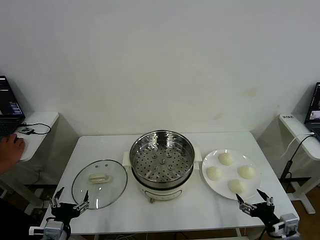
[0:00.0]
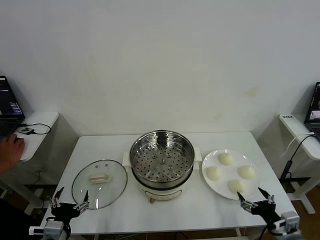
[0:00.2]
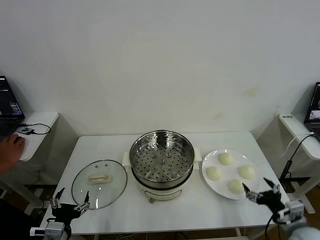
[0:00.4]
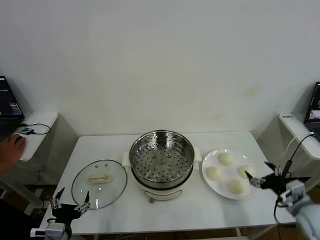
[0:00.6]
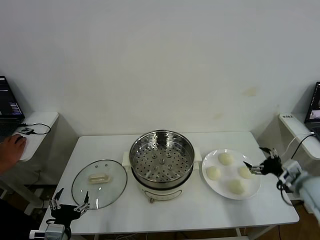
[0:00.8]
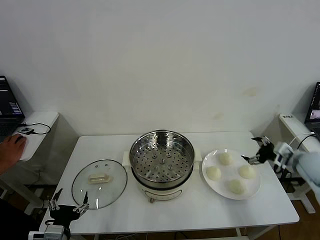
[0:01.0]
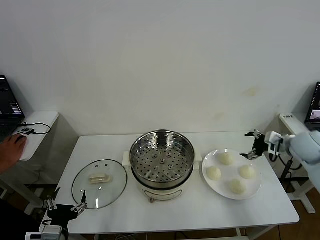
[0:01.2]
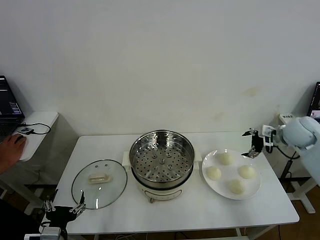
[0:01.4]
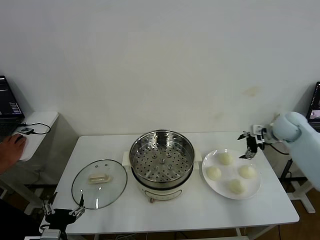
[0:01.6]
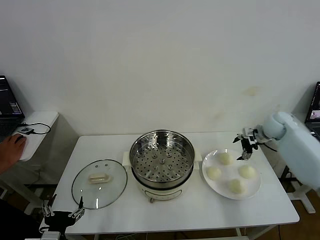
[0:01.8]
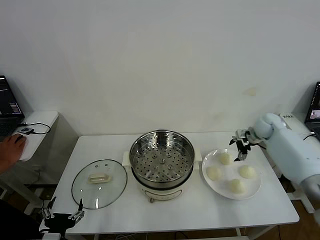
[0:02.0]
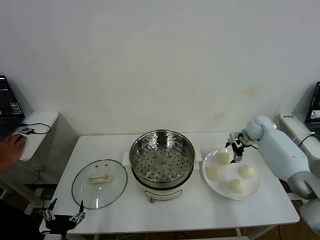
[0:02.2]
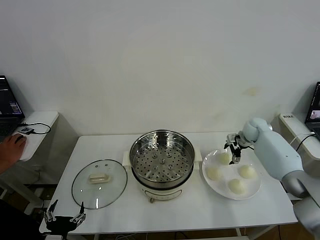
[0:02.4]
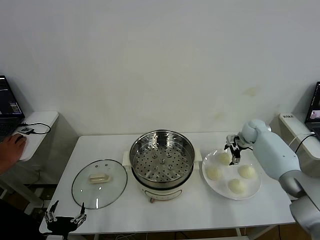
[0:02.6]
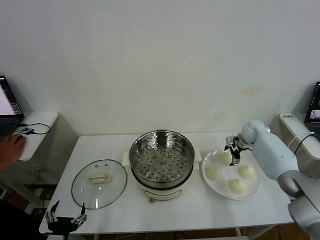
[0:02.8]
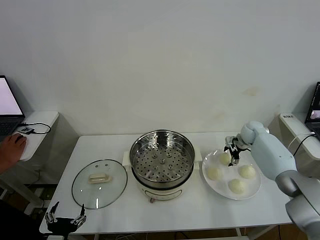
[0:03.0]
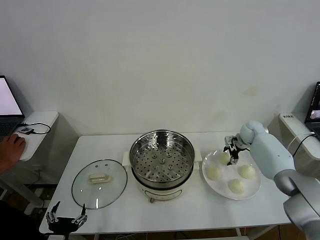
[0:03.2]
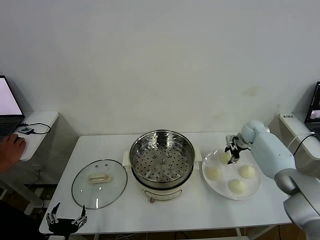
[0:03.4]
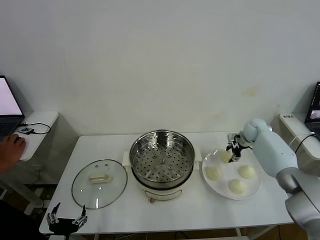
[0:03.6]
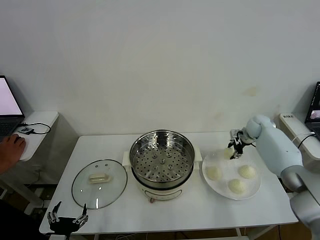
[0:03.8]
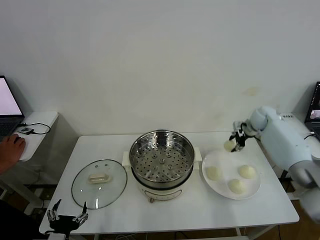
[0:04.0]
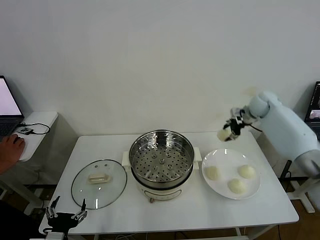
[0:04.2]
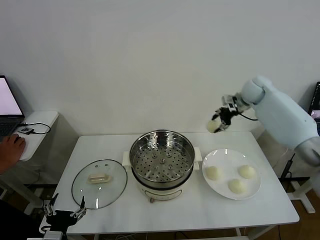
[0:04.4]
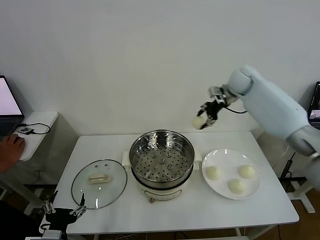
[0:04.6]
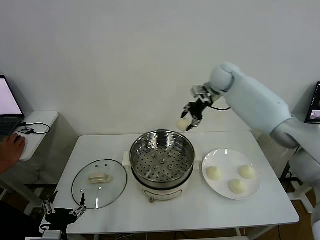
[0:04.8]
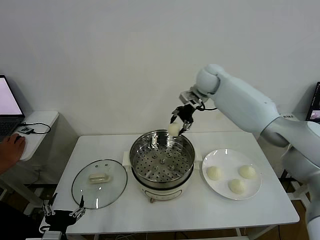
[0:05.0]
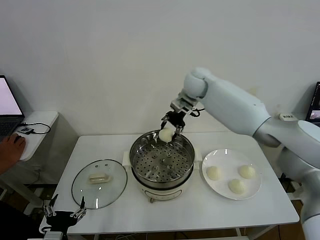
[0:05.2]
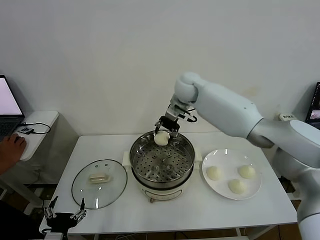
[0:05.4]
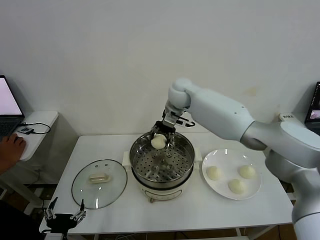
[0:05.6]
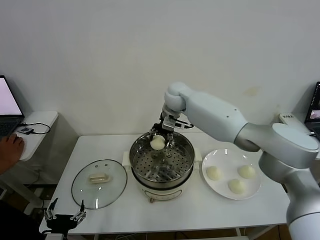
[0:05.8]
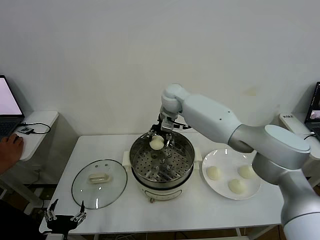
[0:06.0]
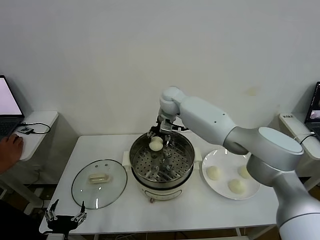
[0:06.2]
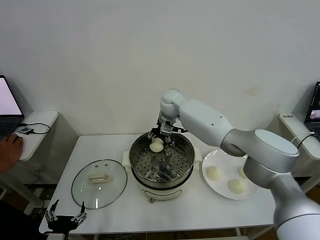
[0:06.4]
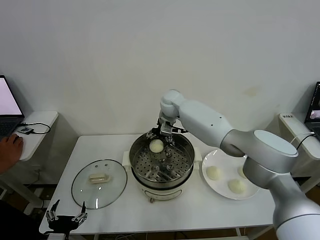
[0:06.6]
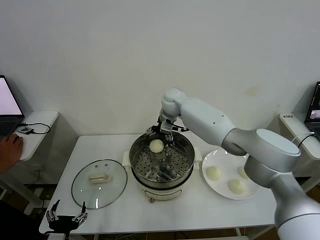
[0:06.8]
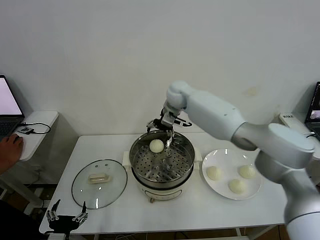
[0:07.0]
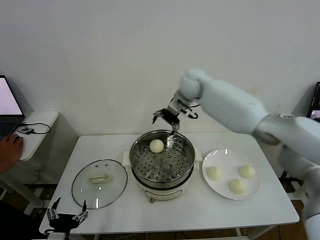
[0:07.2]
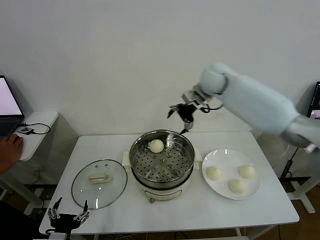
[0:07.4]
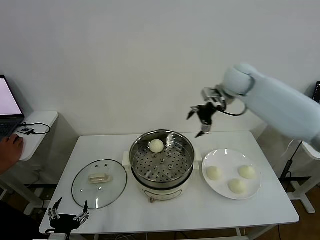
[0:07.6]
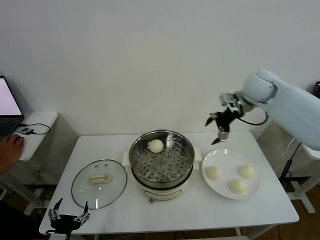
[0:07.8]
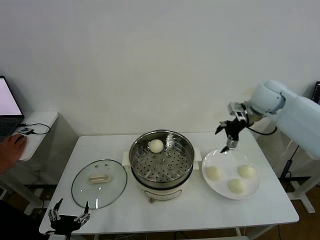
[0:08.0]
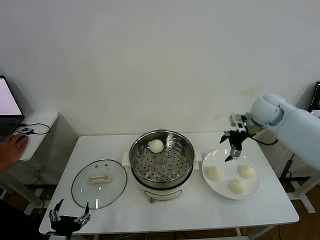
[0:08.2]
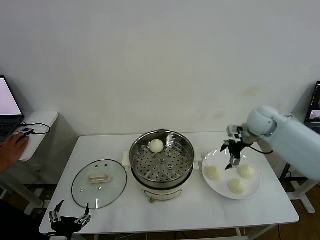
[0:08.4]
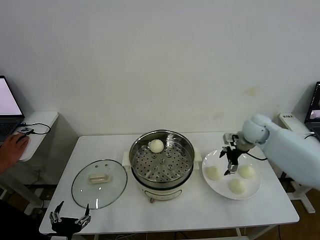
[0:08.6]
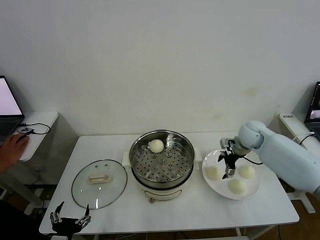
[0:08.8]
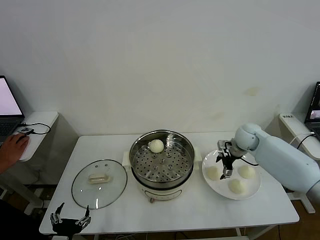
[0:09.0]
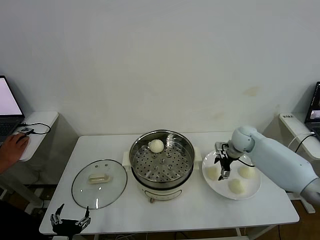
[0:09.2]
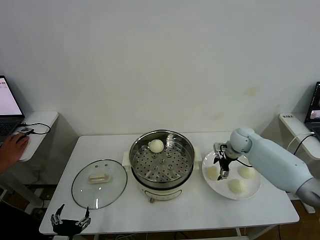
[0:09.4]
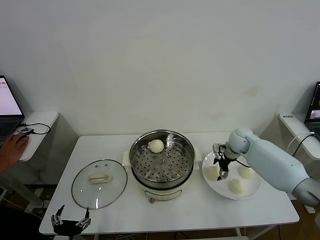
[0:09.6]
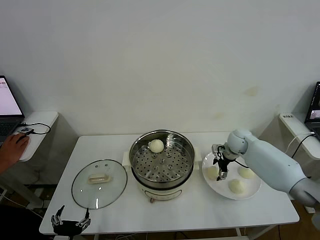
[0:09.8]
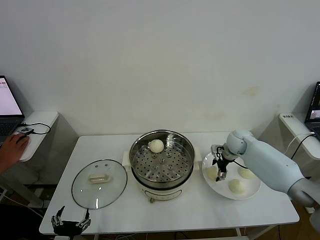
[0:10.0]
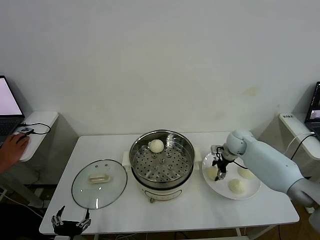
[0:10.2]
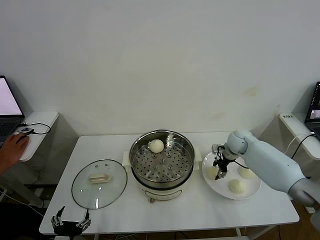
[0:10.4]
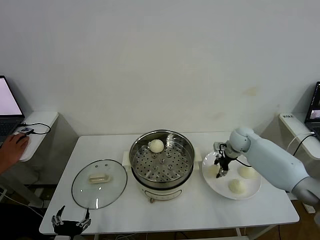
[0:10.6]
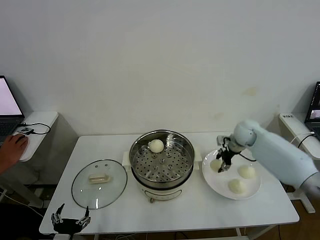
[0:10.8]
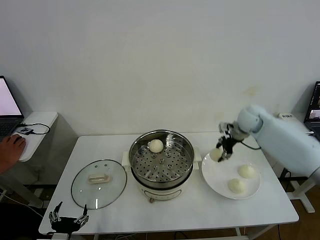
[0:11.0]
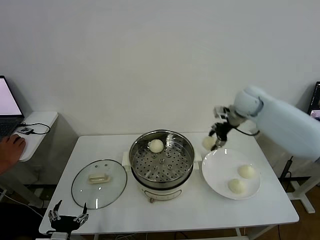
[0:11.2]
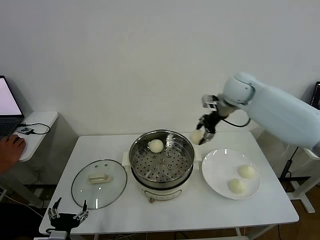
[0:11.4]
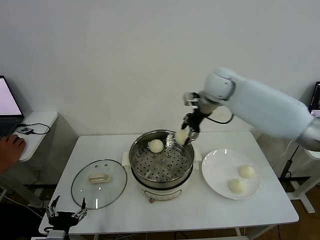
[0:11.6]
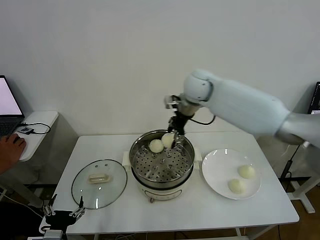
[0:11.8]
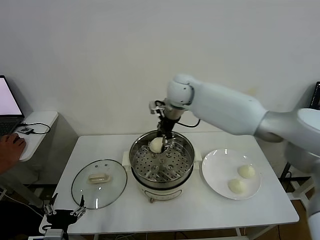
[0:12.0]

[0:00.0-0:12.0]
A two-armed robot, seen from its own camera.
Step, 0:00.0 to 0:03.4: Grasp the baozi in the plate with right gripper.
Step, 0:03.6 to 0:06.4: Place the baozi on the steamer with right gripper.
Step, 0:06.8 to 0:10.4: Grasp the baozi in the plate with right gripper.
0:01.6 to 0:03.0: The right gripper is displaced downward and forward by some 15 cm.
0:03.0 to 0:04.4: The right gripper goes about 20 cm upward, and closes.
0:04.4 to 0:06.0: The right gripper goes roughly 25 cm to the left.
0:06.0 to 0:07.6: The right gripper heads to the right and upward, covering roughly 25 cm, and opens.
0:07.6 to 0:09.0: The right gripper moves downward, roughly 20 cm.
0:09.0 to 0:10.4: The right gripper closes up.
0:10.4 to 0:12.0: The right gripper moves to the left and upward, approximately 35 cm.

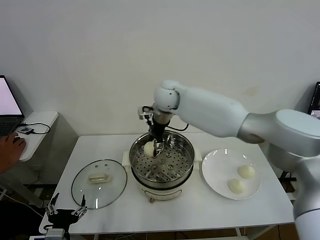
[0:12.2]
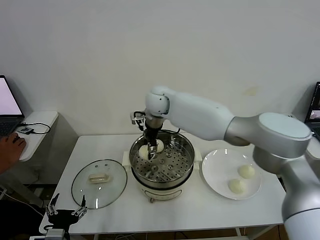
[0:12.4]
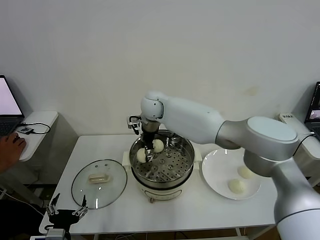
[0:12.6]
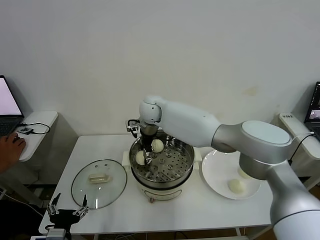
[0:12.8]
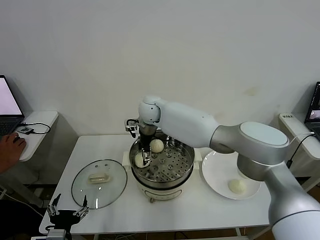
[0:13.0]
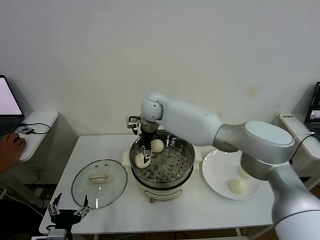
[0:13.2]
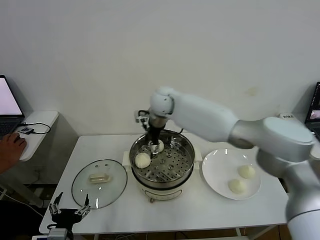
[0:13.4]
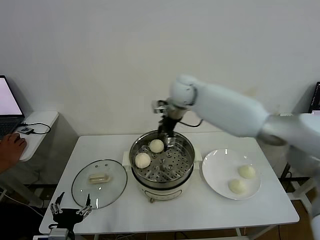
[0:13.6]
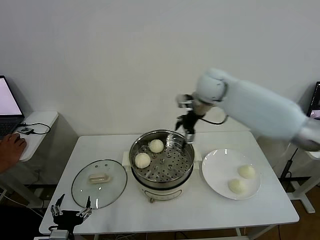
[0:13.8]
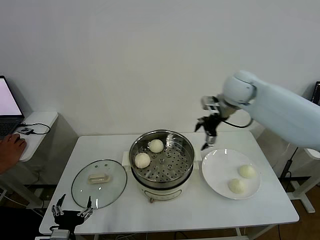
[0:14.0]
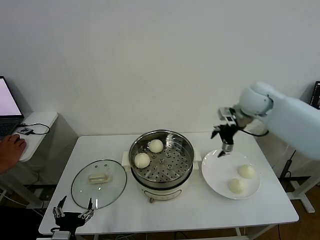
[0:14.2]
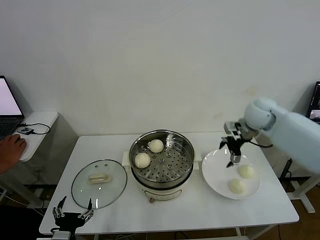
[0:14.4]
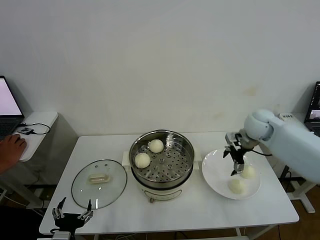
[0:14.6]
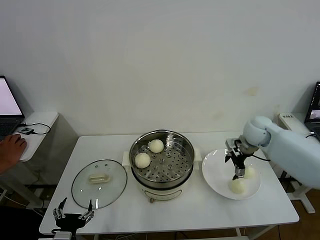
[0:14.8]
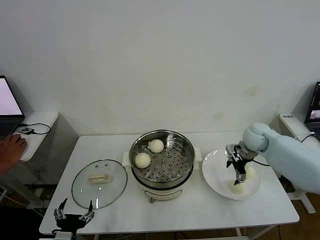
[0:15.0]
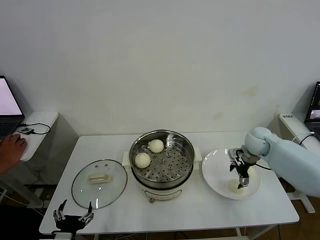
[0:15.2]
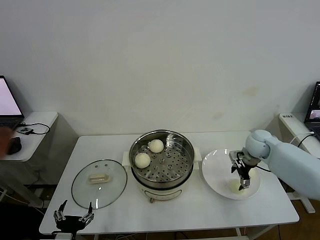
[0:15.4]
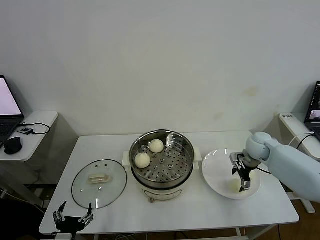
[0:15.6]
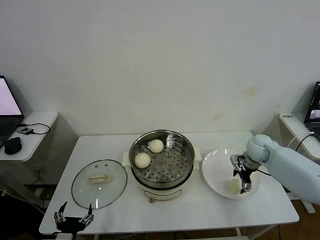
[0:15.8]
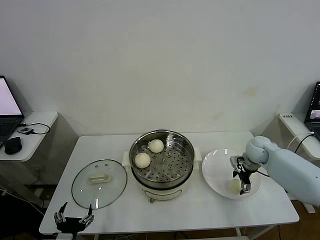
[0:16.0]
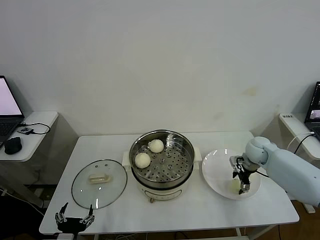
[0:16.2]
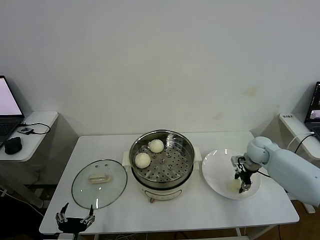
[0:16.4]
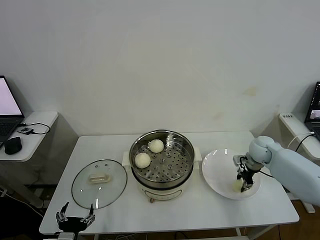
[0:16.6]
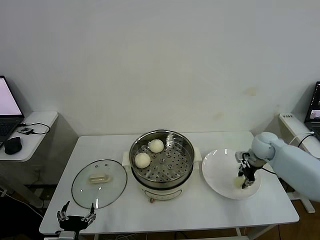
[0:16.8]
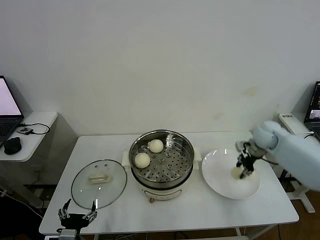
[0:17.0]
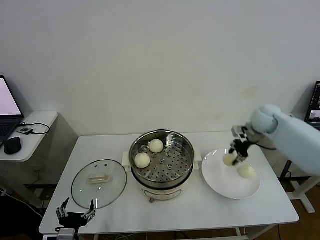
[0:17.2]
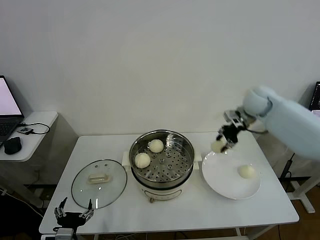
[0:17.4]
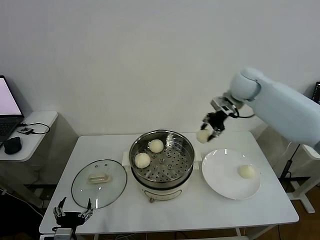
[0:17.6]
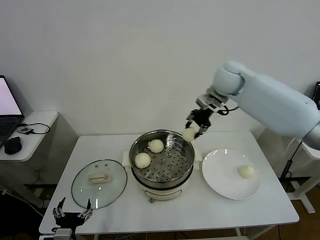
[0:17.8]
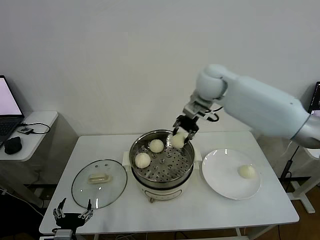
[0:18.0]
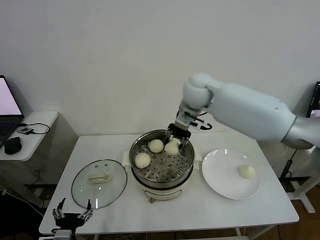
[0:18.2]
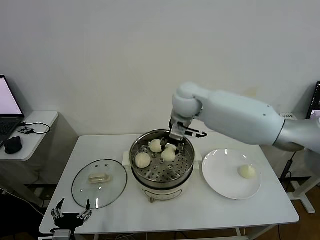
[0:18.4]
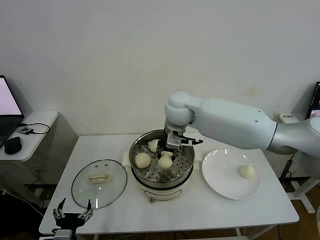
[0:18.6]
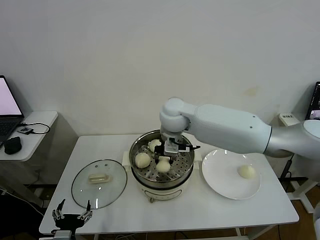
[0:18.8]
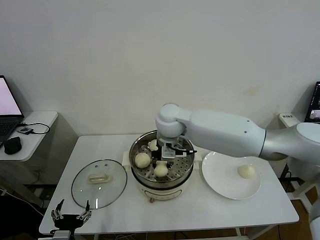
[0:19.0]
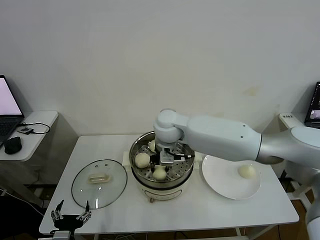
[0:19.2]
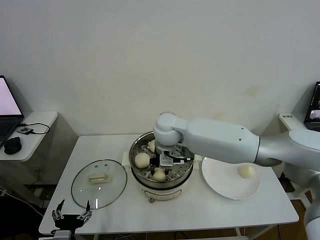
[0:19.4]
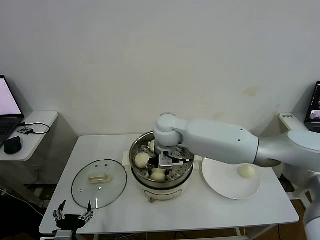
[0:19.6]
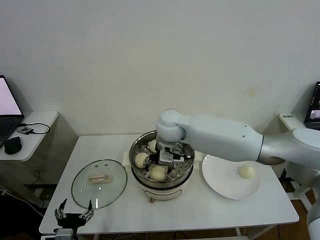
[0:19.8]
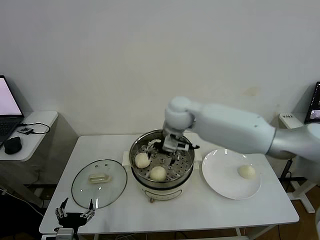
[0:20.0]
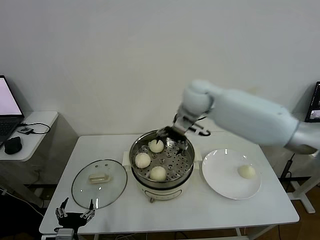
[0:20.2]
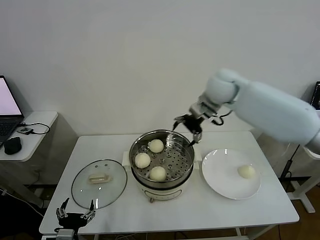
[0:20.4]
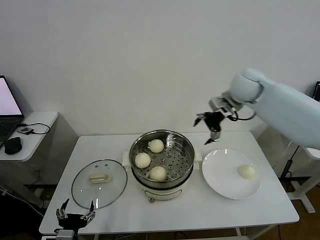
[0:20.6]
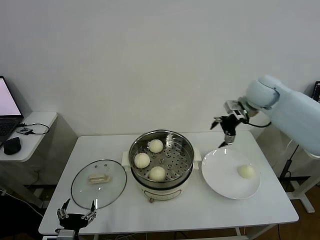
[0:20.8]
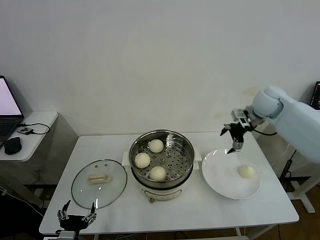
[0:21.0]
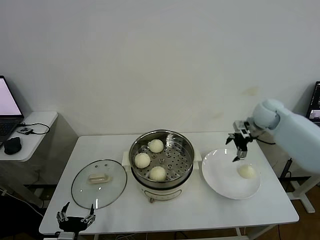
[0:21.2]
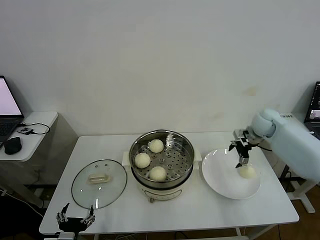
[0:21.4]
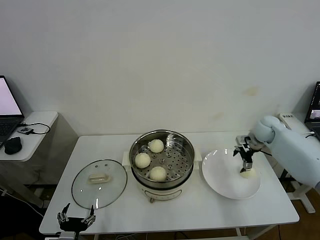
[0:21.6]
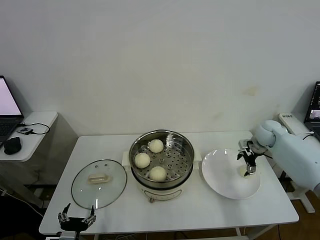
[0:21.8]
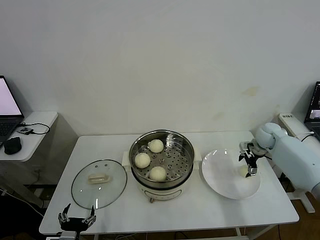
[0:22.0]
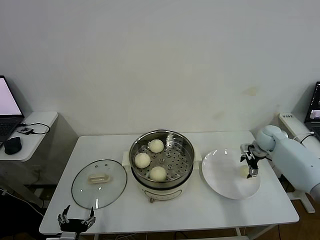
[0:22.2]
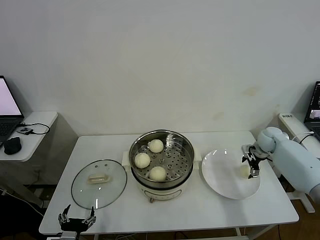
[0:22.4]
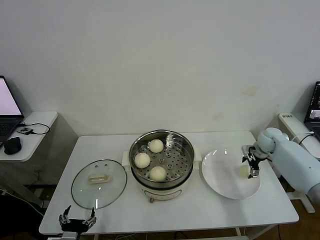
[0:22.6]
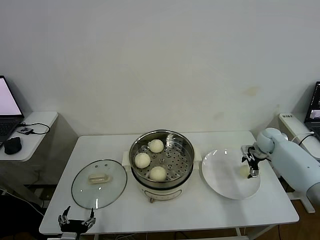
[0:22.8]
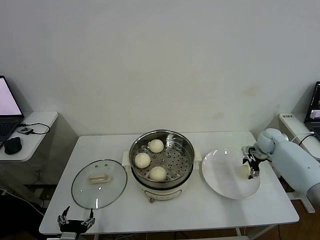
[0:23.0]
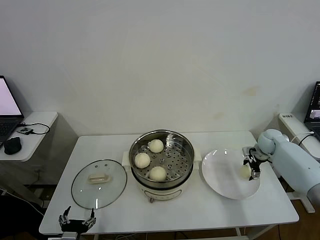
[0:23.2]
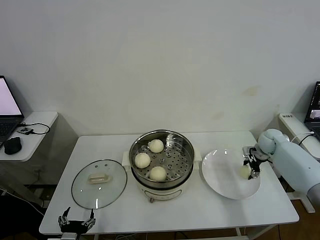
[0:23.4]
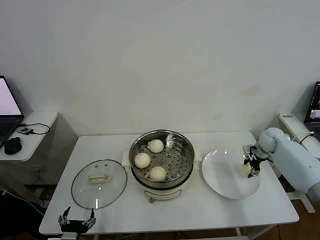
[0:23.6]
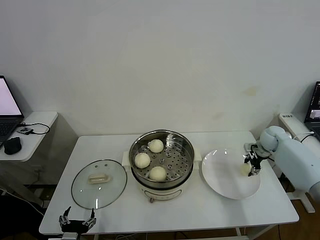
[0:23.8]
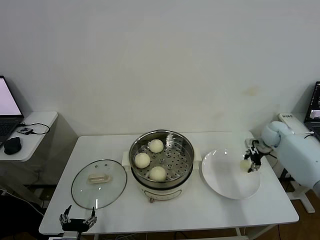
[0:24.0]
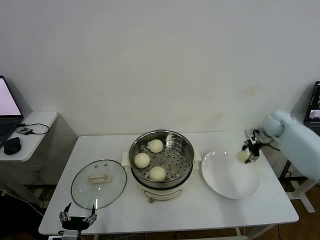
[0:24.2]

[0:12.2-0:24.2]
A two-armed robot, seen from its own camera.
Step, 0:13.0 to 0:16.6: Grasp the baozi in the plate with right gripper.
Step, 0:16.8 to 0:19.6: Place the baozi on the steamer with right gripper.
Step, 0:19.8 to 0:23.6: Grasp the baozi in the plate with right gripper.
0:12.2 to 0:13.8: The right gripper goes roughly 20 cm to the right, and opens its fingers.
0:13.8 to 0:15.2: The right gripper heads downward and to the right, covering some 25 cm.
0:15.2 to 0:16.6: The right gripper closes up.
0:16.6 to 0:18.2: The right gripper shifts some 35 cm to the left and upward.
0:18.2 to 0:19.8: The right gripper goes about 10 cm downward, to the left and backward, and opens its fingers.
0:19.8 to 0:21.2: The right gripper is displaced to the right by some 35 cm.
0:21.2 to 0:22.6: The right gripper goes some 15 cm downward and to the right.
0:22.6 to 0:24.2: The right gripper heads upward, covering approximately 10 cm, and closes up.
